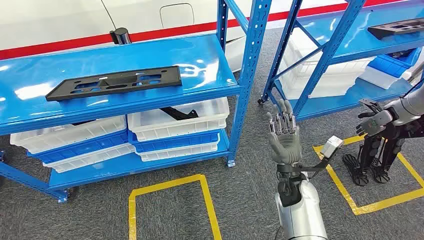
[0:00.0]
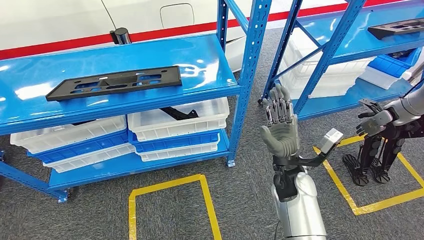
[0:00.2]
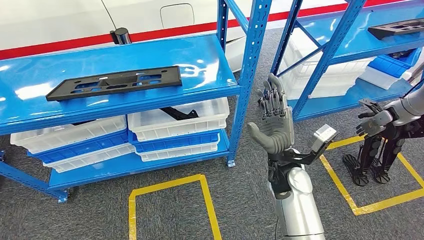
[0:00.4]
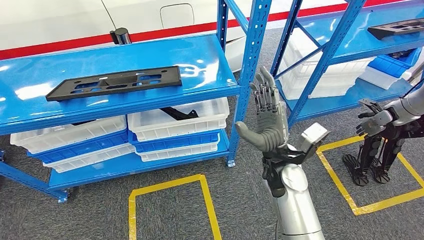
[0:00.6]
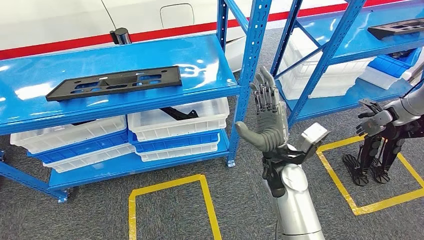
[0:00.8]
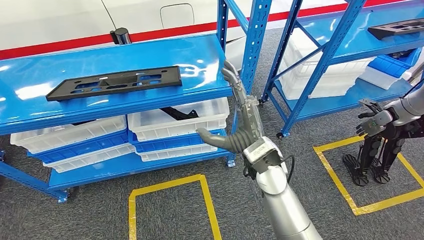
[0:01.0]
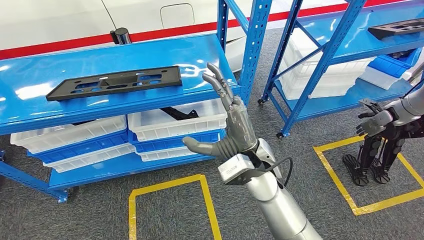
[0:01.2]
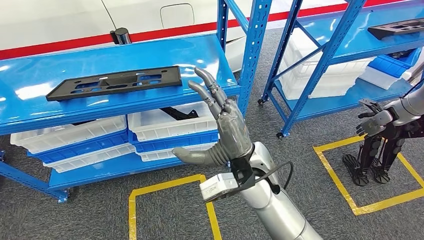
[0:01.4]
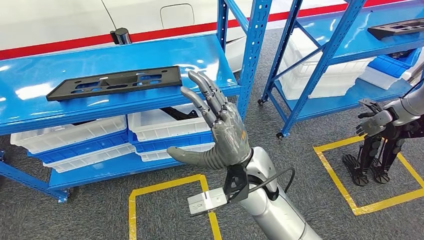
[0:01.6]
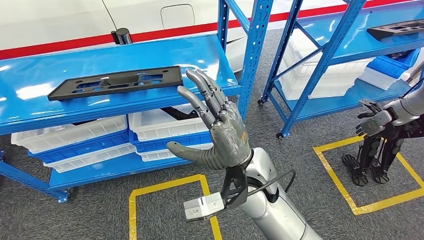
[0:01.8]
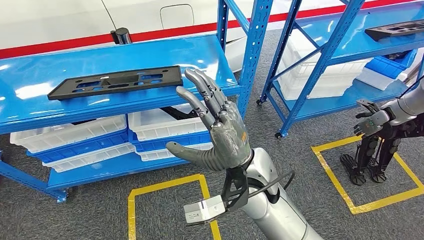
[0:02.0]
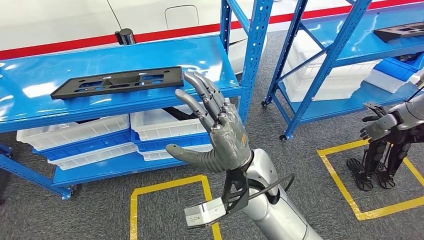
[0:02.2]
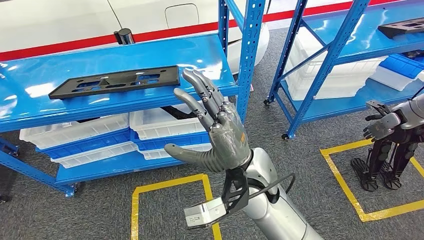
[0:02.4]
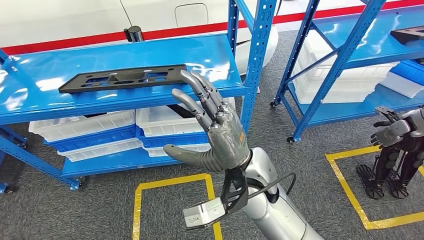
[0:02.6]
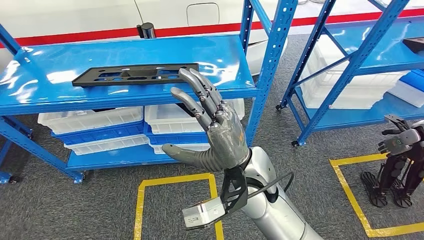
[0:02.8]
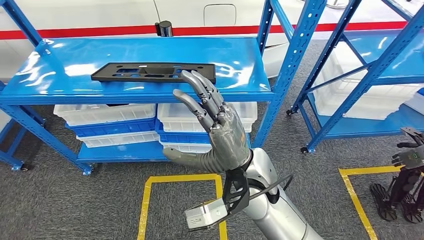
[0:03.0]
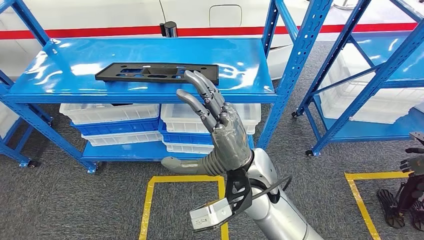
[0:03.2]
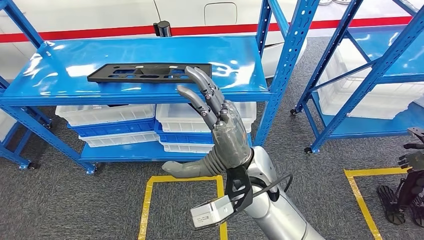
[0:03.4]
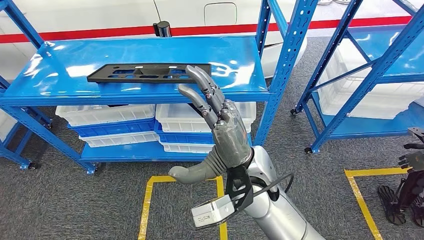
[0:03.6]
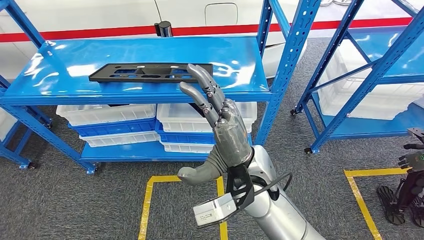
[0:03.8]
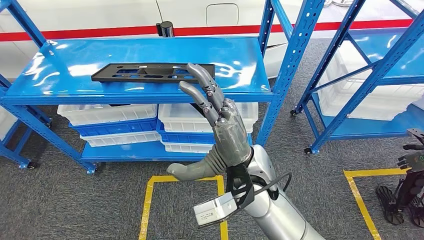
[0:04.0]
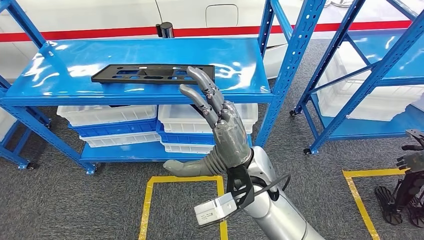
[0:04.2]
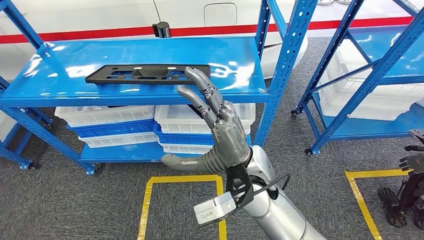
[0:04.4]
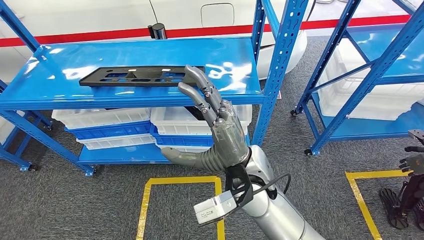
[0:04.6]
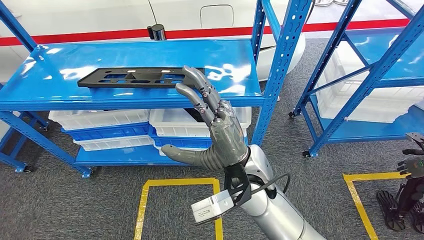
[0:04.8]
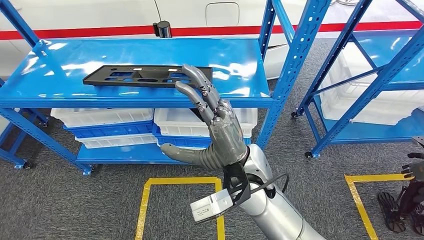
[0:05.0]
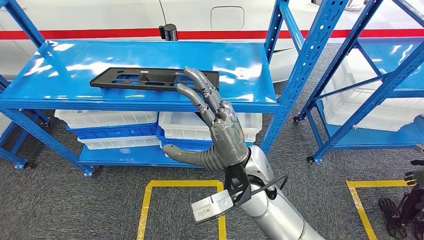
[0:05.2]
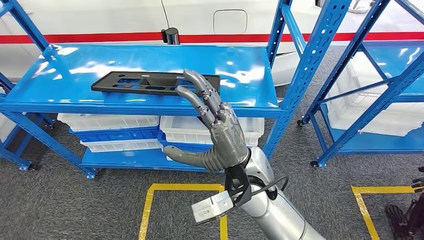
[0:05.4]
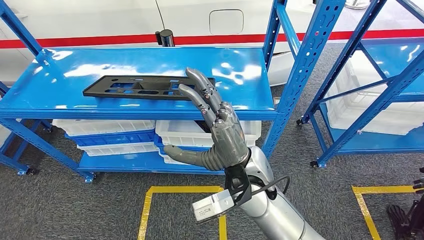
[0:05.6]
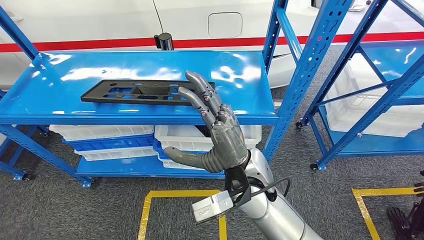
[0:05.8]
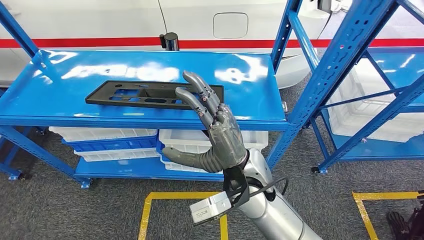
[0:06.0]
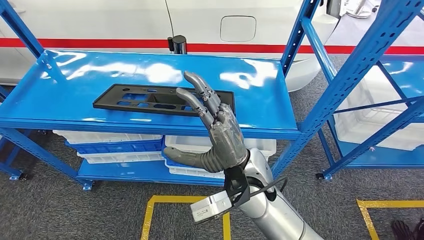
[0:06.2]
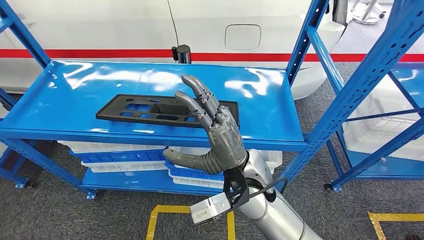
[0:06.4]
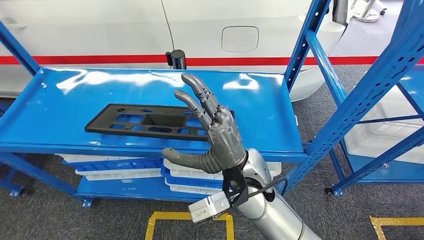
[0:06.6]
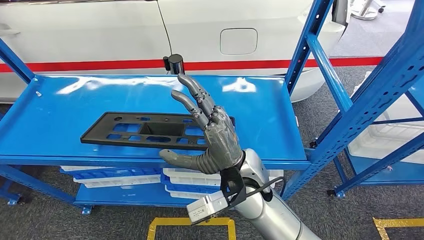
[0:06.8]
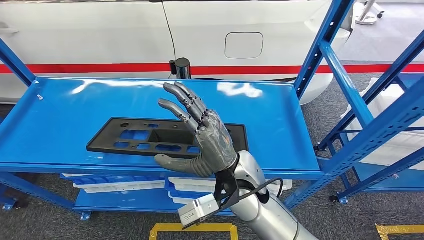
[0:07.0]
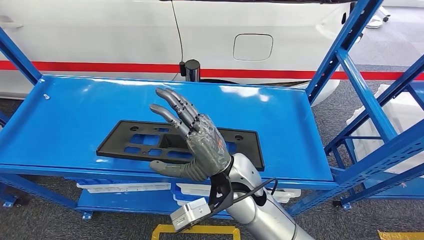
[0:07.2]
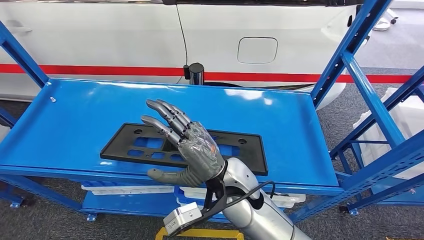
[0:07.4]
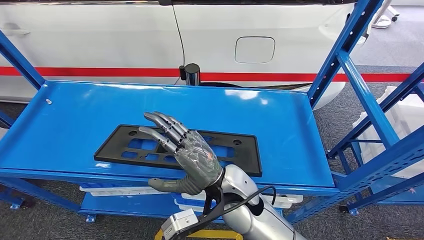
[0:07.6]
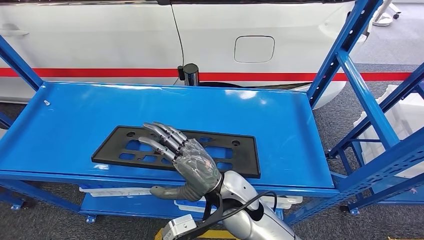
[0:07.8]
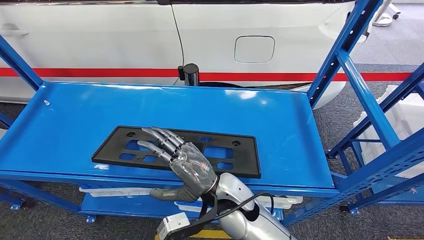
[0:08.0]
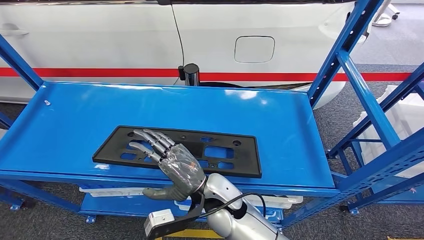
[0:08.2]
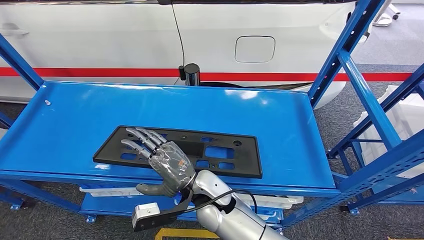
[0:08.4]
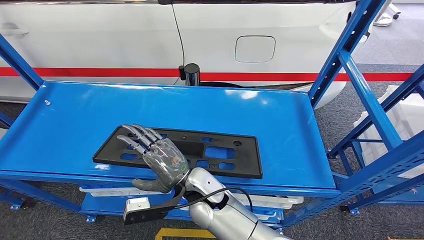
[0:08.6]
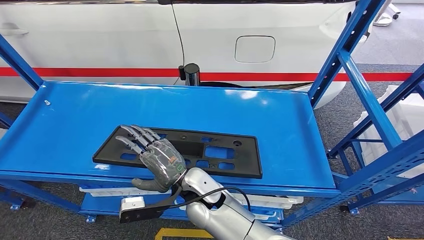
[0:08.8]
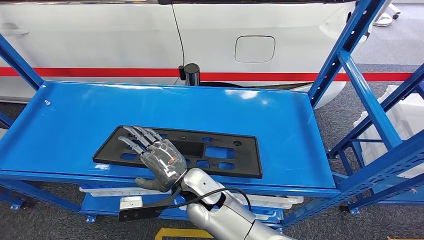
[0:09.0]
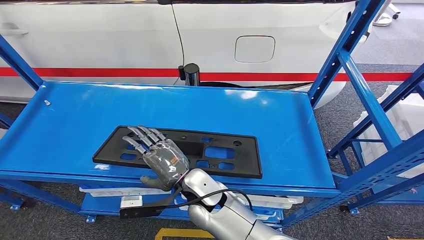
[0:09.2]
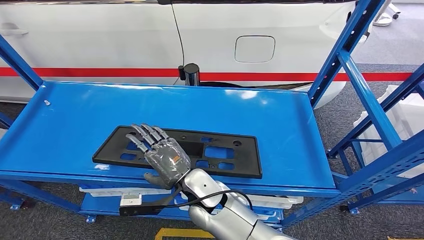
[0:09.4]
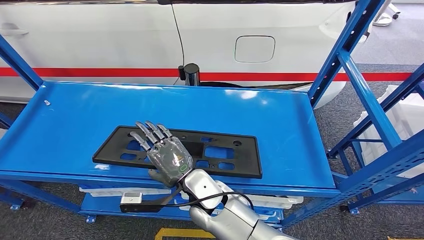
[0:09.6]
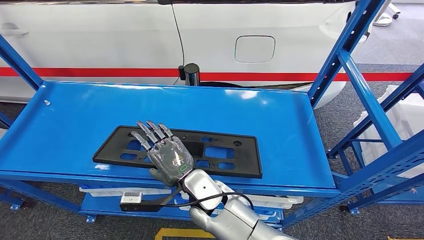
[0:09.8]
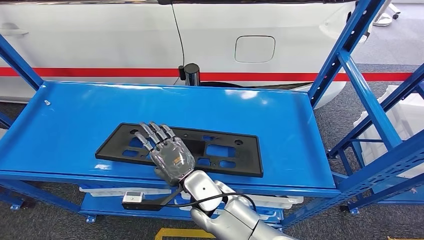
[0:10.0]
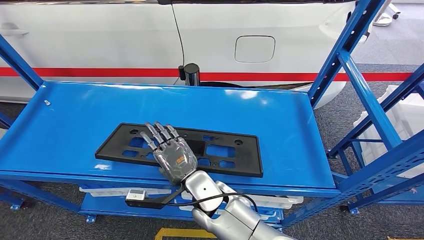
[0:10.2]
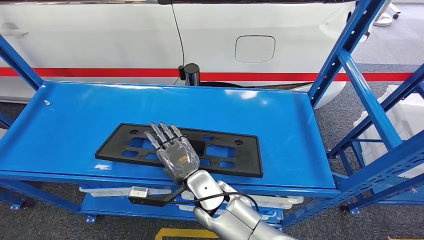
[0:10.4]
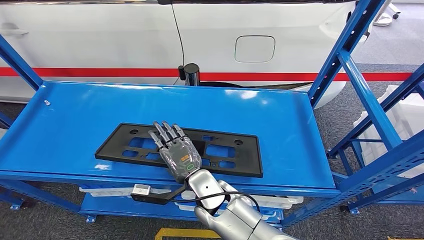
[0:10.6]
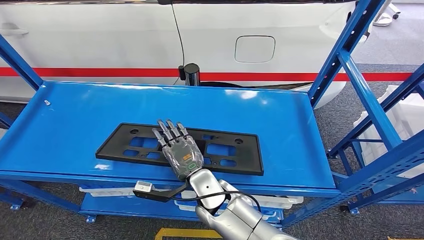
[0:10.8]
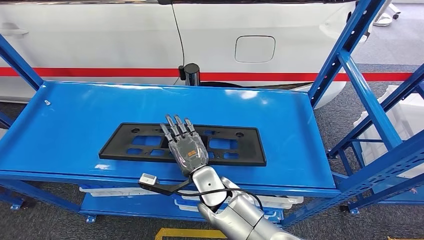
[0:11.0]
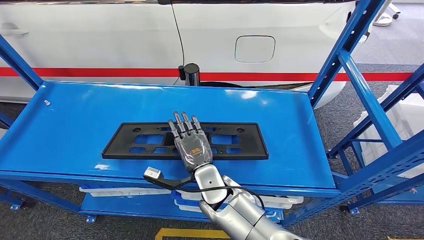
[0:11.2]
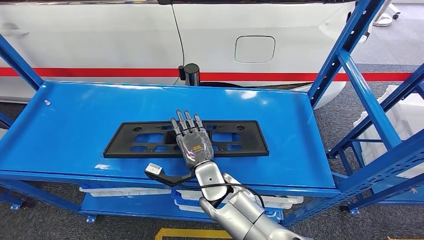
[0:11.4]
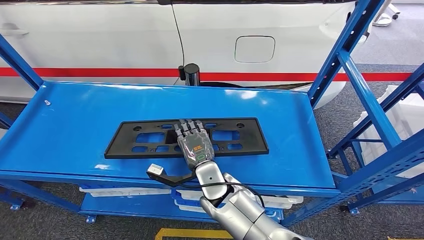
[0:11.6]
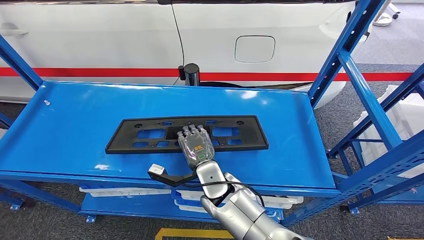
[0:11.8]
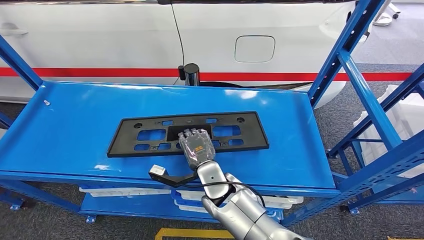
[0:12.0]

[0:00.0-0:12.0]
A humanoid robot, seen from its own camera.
0:07.6 to 0:09.0: The right hand goes roughly 5 cm downward and to the left.
0:10.4 to 0:12.0: There are only small adjustments of the hands.

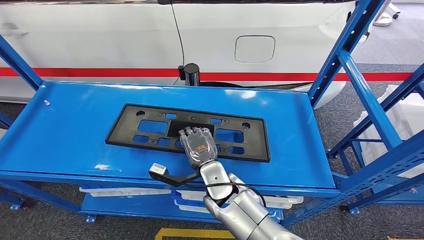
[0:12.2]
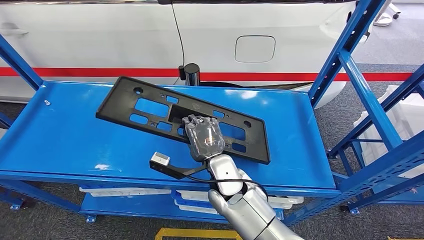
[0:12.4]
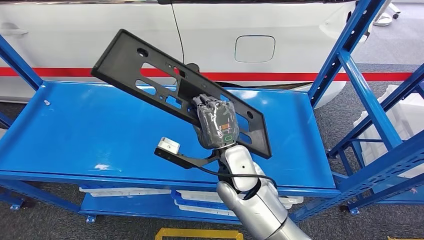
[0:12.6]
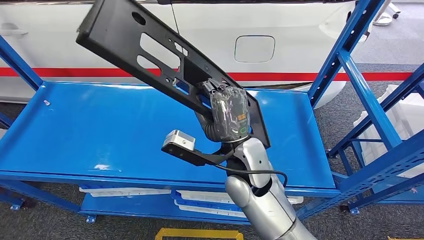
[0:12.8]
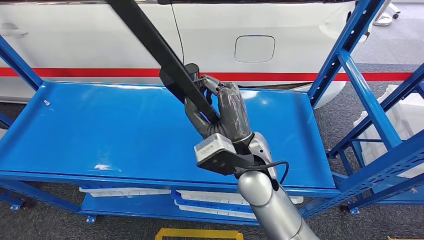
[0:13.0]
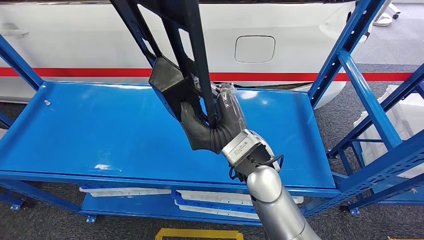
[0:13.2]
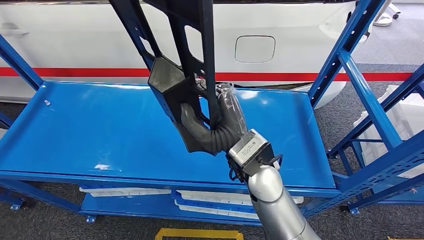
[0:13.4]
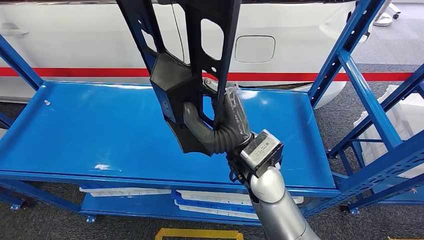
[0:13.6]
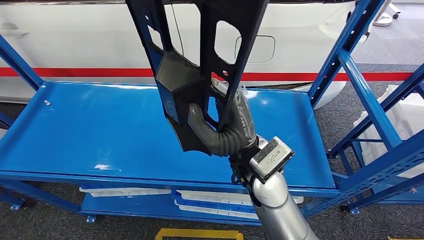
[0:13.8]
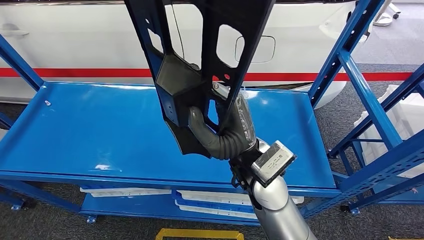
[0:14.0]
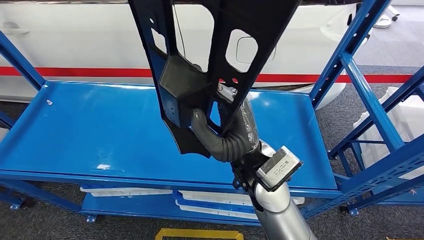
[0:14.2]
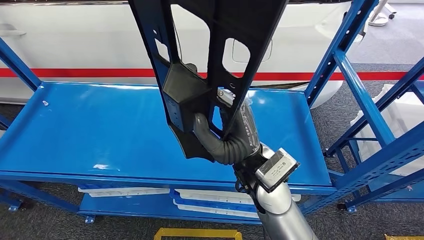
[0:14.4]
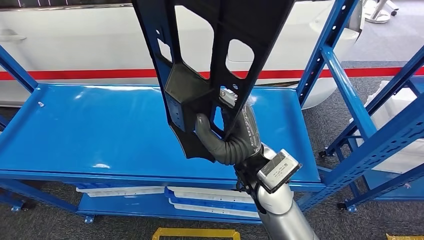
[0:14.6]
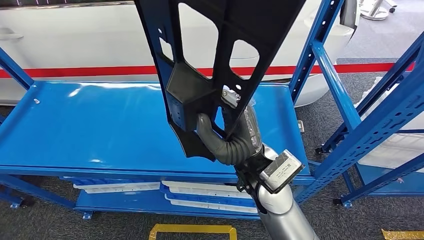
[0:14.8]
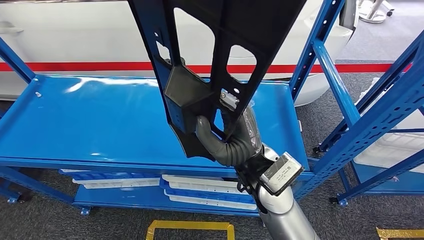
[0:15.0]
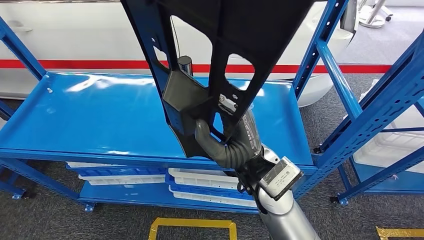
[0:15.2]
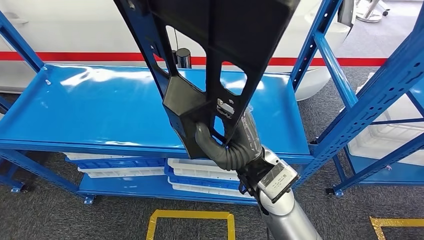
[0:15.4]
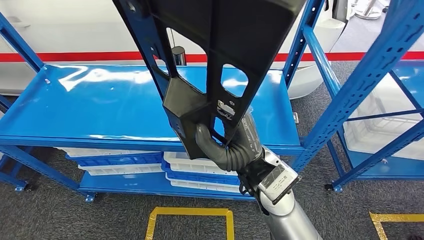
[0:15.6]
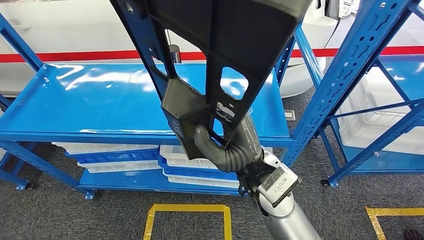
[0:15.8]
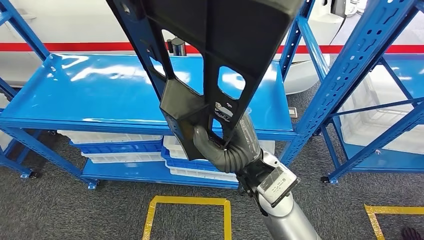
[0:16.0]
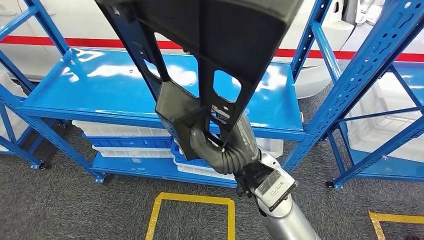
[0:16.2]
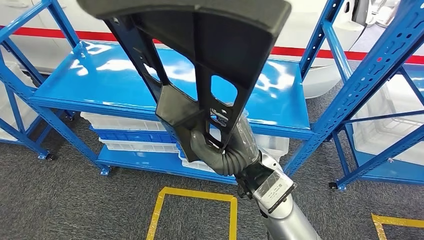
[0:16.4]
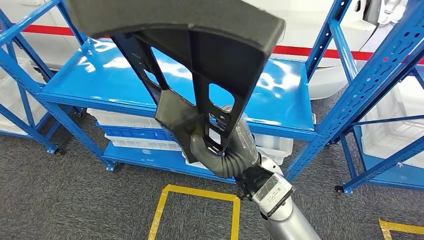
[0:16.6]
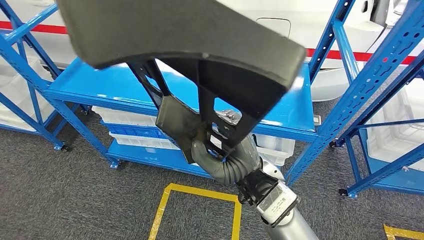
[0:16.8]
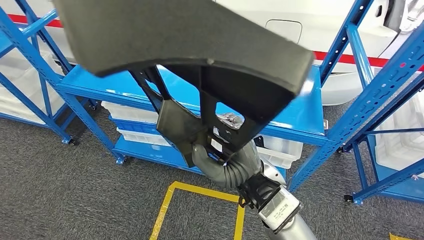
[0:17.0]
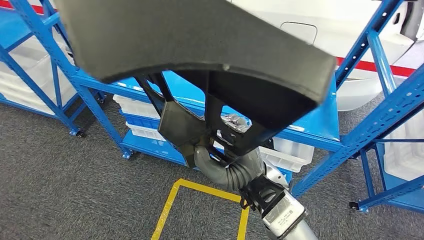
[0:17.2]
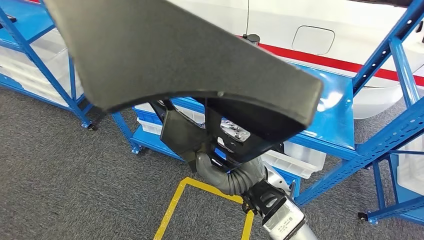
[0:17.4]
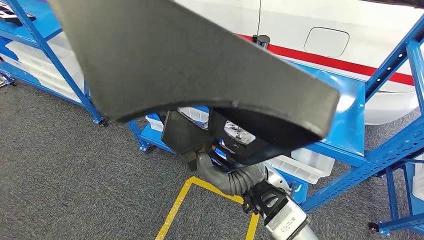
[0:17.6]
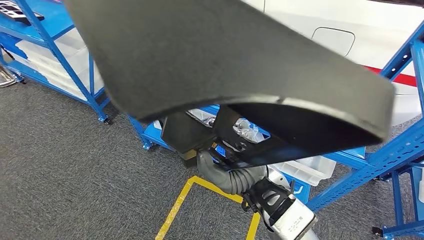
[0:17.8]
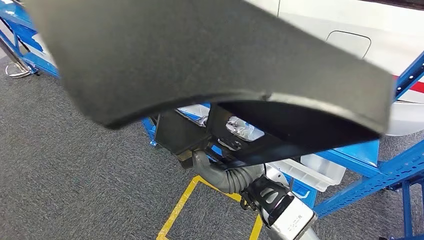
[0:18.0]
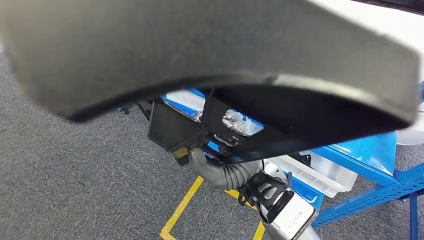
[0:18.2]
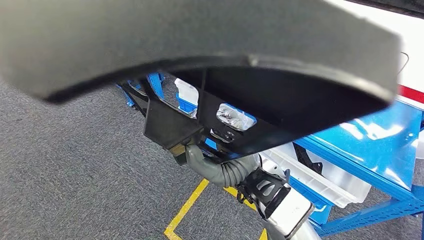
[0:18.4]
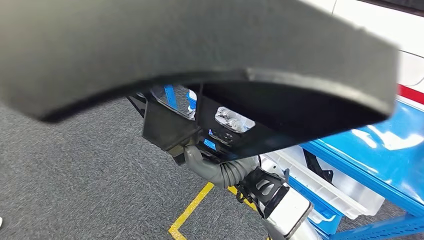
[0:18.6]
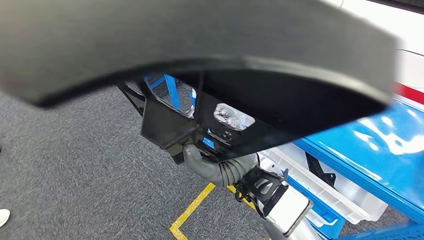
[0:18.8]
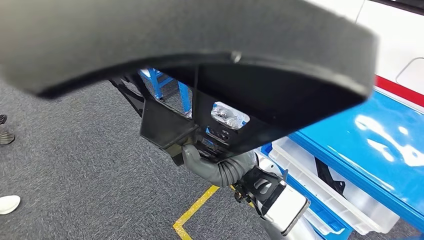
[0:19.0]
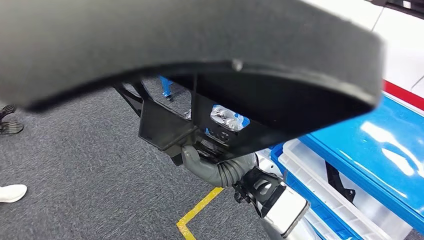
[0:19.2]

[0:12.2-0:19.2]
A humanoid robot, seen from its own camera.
Step, 0:12.2 to 0:14.6: Pick up the large material from the shelf.
0:12.2 to 0:13.6: The right hand heads upward, covering some 15 cm.
